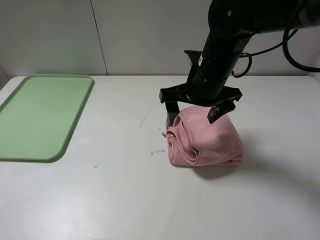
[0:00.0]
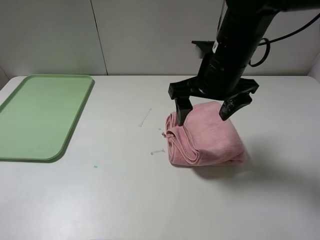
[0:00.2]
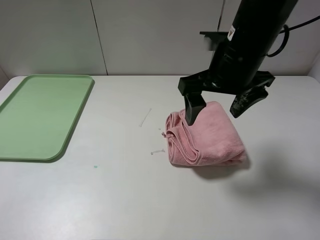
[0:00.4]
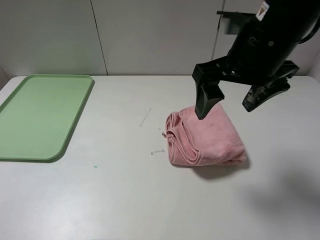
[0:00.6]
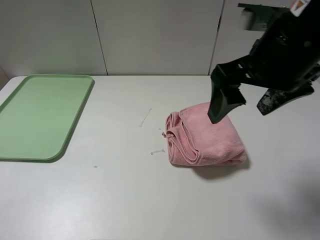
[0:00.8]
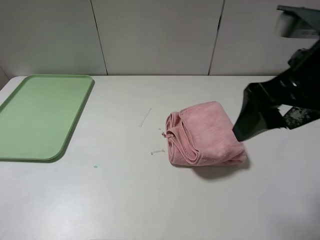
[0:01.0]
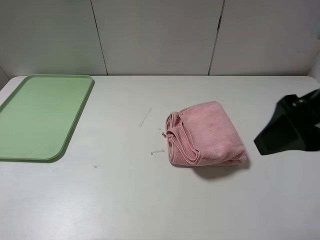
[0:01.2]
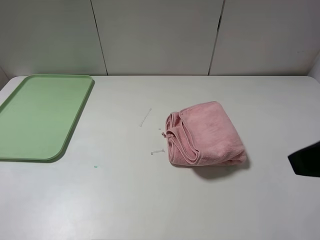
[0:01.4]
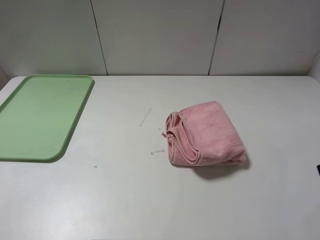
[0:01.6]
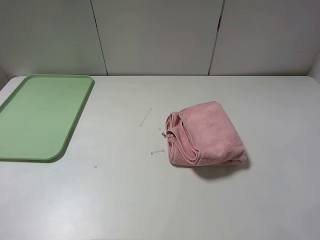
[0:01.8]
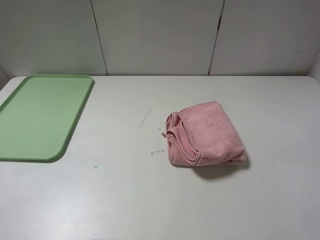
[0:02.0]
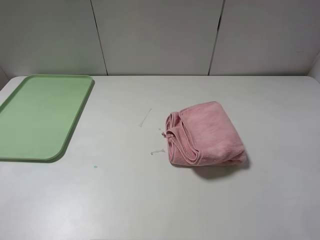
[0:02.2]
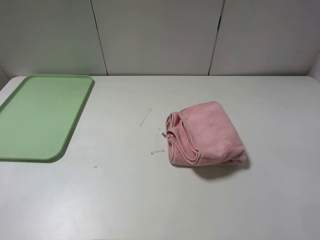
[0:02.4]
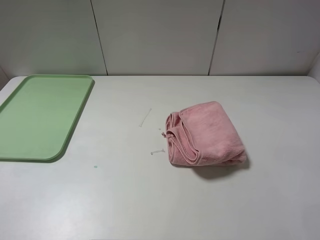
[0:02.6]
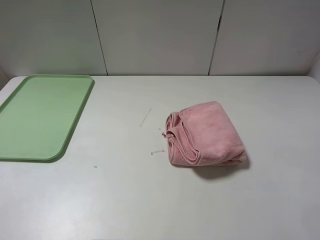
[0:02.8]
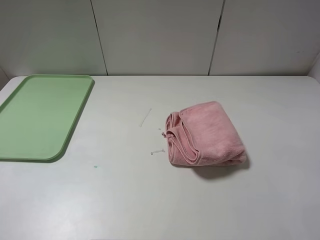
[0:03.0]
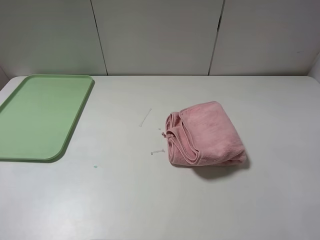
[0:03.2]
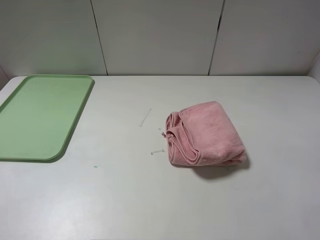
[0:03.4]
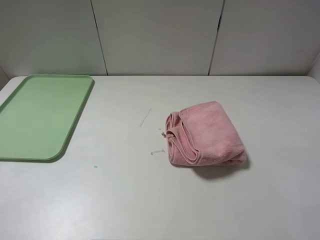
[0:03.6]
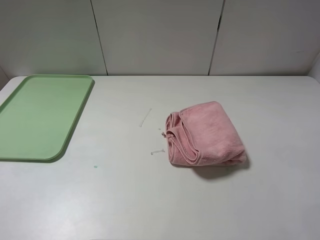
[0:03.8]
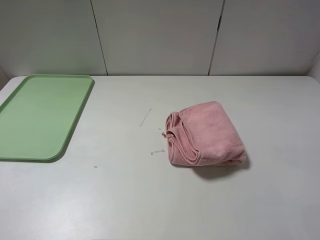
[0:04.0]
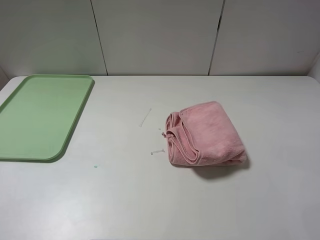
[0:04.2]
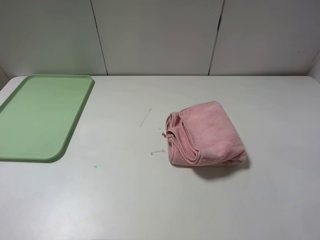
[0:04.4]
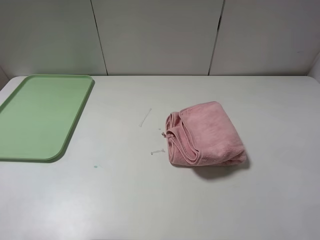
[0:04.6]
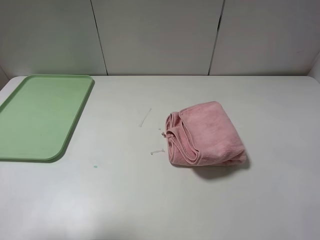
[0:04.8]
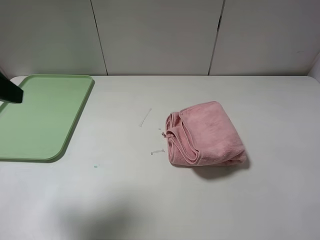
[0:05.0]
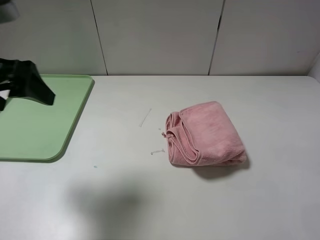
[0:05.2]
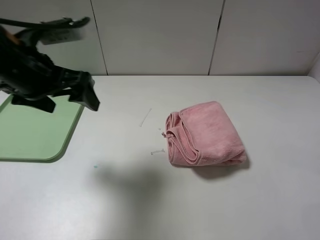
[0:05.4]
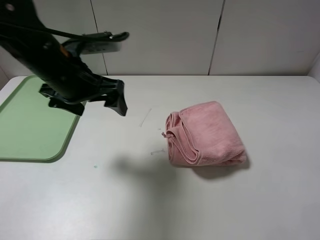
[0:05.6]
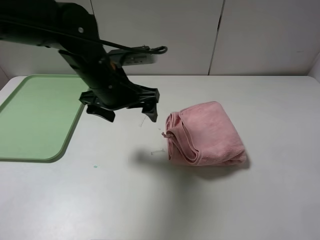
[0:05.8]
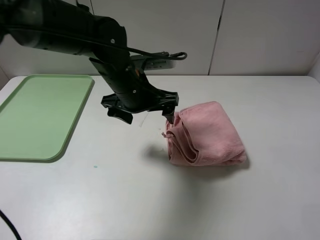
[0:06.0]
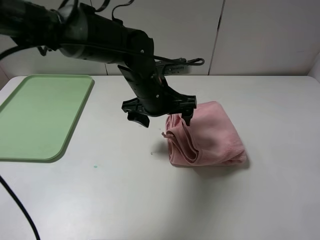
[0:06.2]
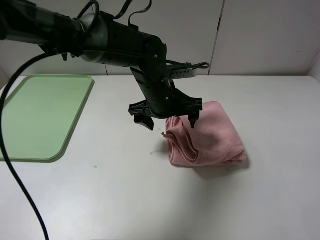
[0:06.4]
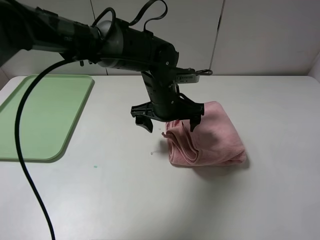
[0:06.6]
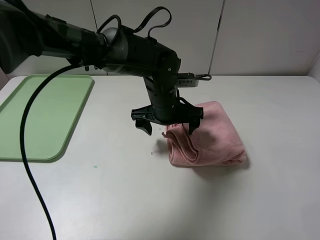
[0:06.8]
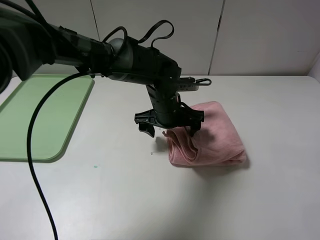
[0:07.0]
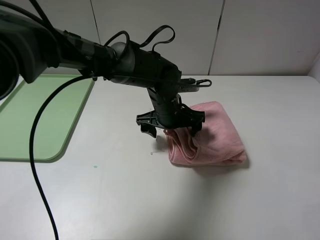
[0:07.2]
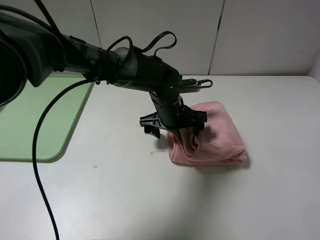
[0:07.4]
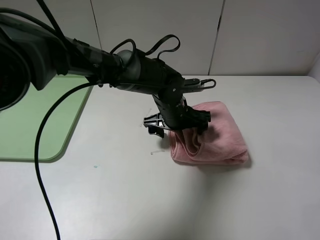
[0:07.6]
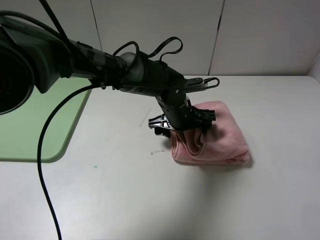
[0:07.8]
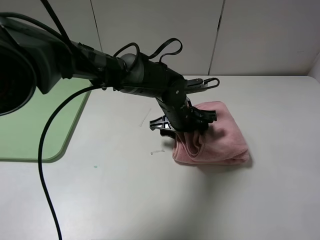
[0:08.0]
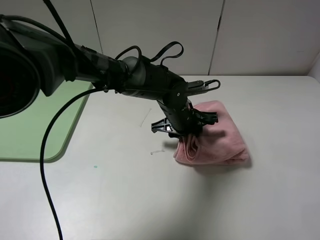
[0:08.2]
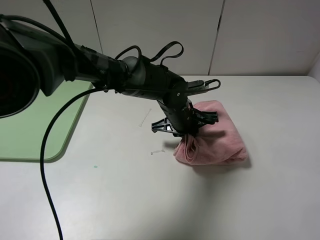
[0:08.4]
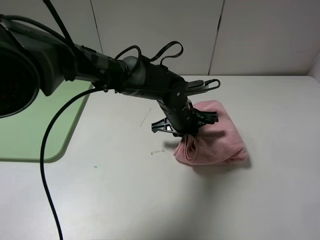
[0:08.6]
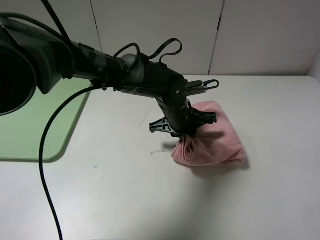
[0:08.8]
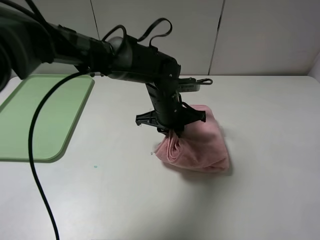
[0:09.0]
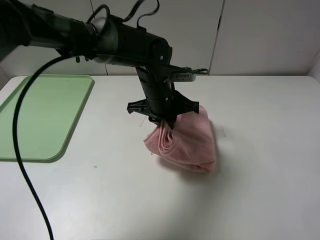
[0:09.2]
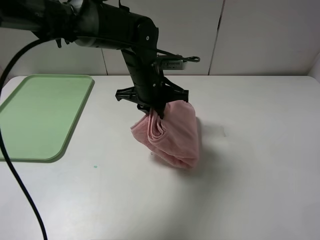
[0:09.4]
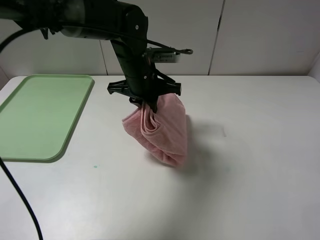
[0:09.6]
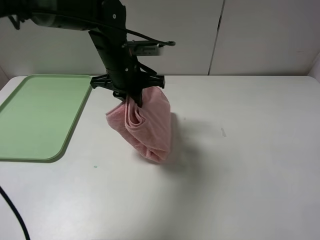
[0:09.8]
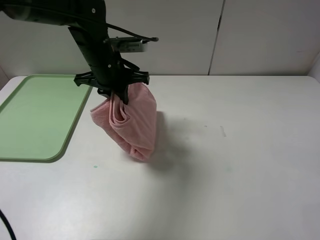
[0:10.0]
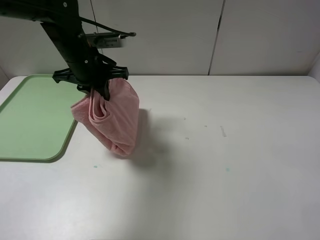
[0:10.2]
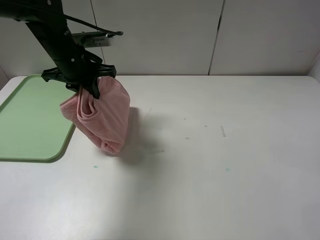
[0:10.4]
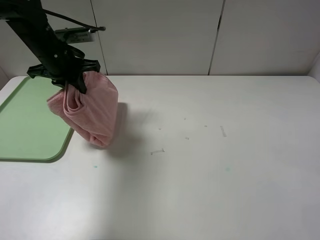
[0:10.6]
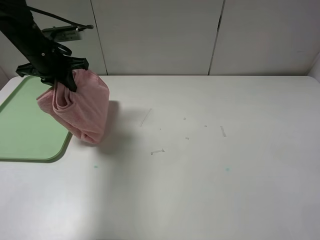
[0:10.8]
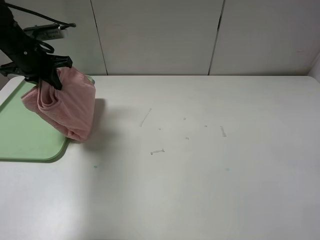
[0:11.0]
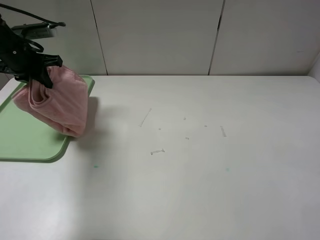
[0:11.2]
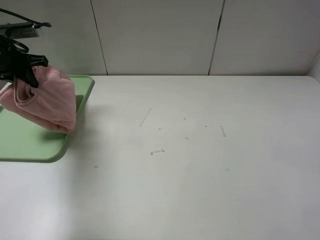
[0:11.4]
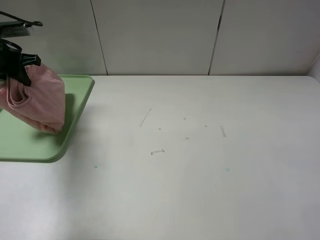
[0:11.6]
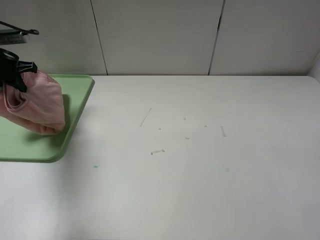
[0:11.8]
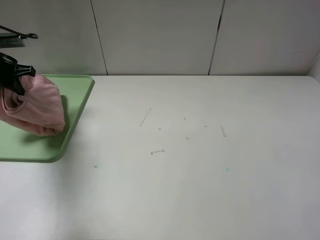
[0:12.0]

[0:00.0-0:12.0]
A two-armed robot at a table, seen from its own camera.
0:00.0 to 0:01.6: The right gripper heads backward, to the right and upward, covering about 30 cm.
0:04.4 to 0:06.0: The left gripper heads forward, to the right and downward, covering roughly 40 cm.
0:06.0 to 0:07.6: The left gripper shifts roughly 10 cm to the right and downward.
0:07.6 to 0:09.0: The left gripper closes its fingers.
0:09.0 to 0:10.4: The left gripper moves to the left and upward, about 25 cm.
0:10.4 to 0:12.0: The left gripper shifts about 20 cm to the left.

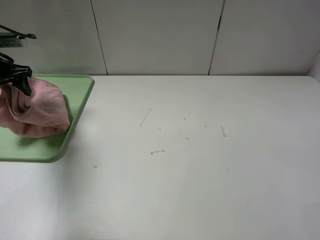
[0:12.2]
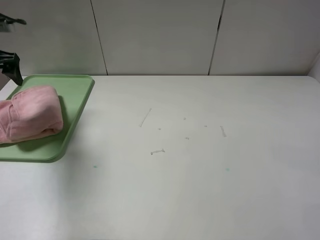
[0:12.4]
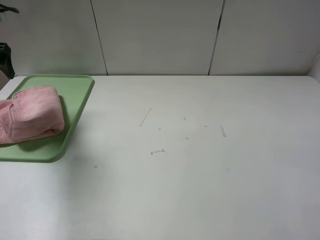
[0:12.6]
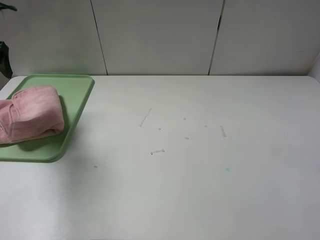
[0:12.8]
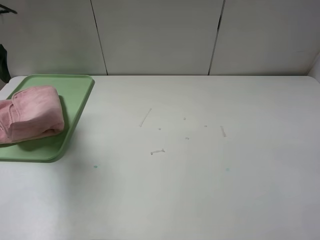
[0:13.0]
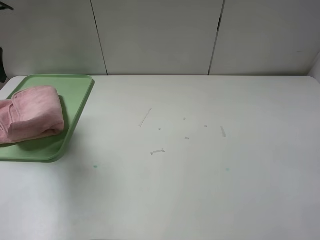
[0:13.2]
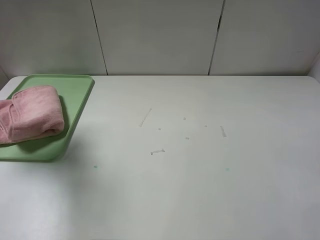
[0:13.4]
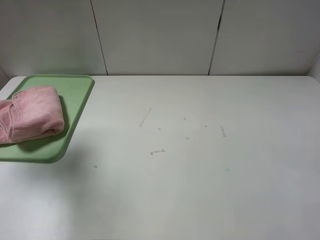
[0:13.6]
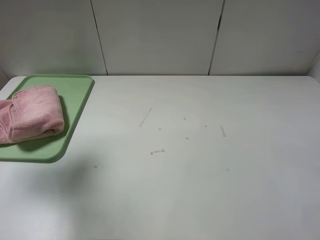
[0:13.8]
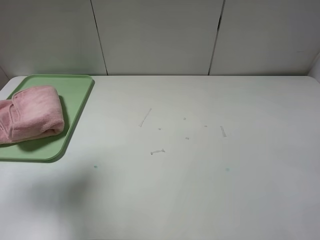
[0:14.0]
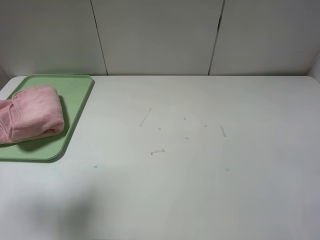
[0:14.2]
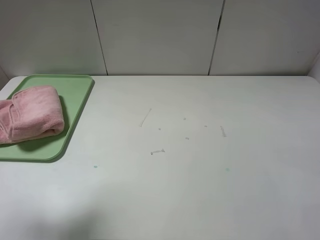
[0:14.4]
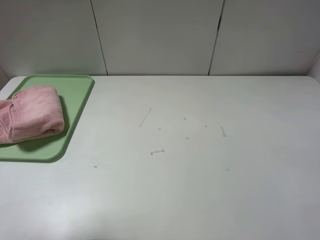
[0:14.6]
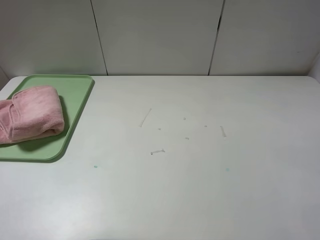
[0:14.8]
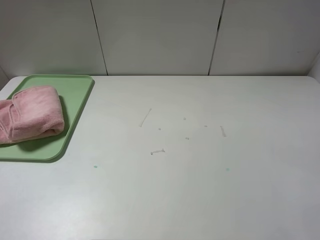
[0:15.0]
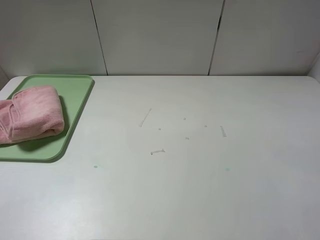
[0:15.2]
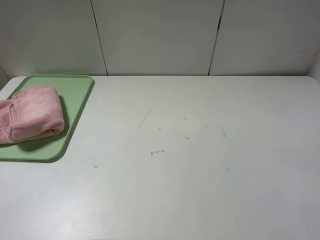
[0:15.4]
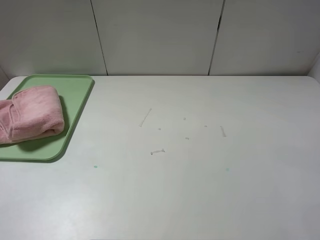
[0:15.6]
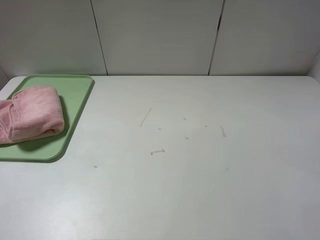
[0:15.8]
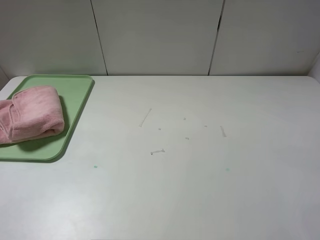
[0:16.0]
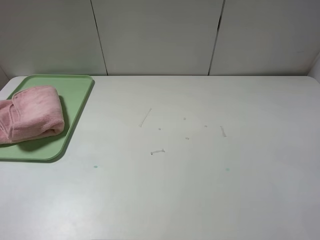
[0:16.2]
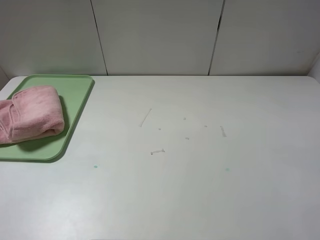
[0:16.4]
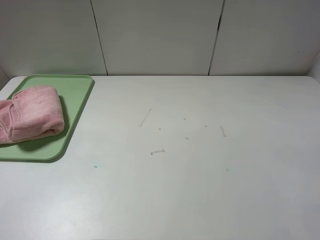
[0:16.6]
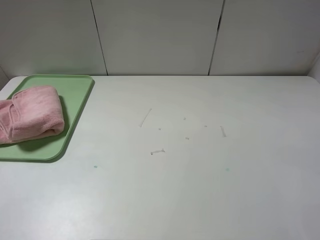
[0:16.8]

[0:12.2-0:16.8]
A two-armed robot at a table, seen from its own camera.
0:12.2 to 0:13.8: The left gripper moves upward and backward, about 20 cm.
0:13.8 to 0:15.2: The left gripper shifts about 25 cm backward.
